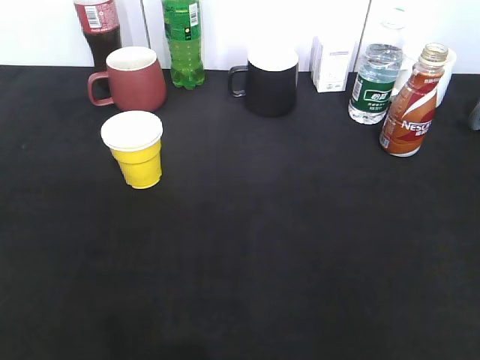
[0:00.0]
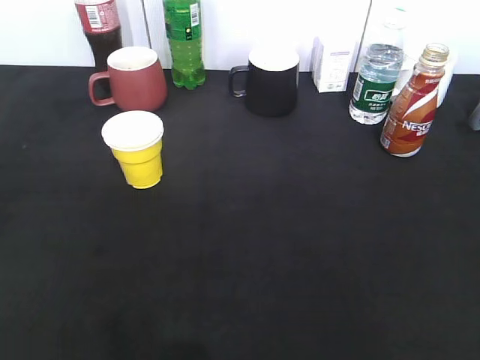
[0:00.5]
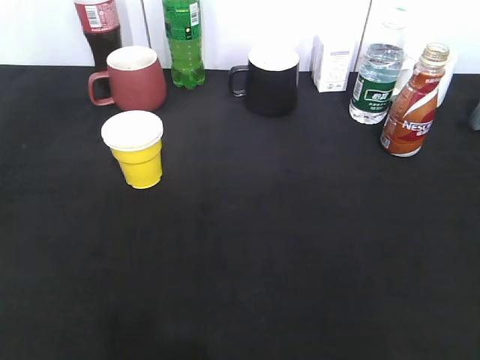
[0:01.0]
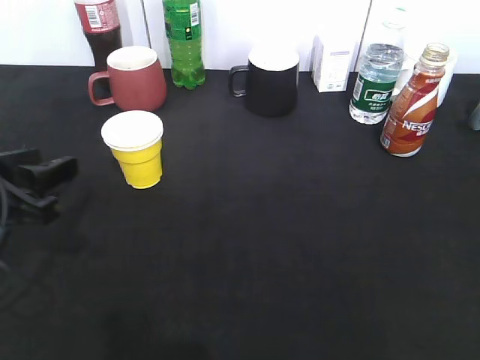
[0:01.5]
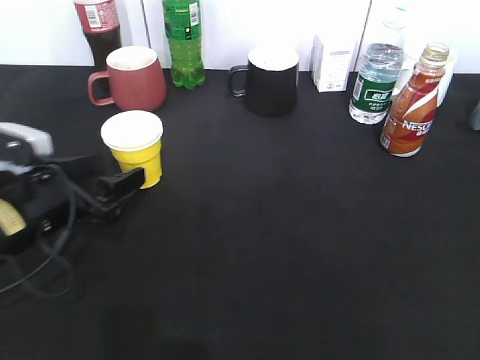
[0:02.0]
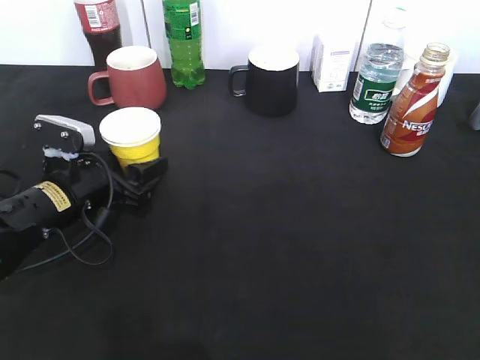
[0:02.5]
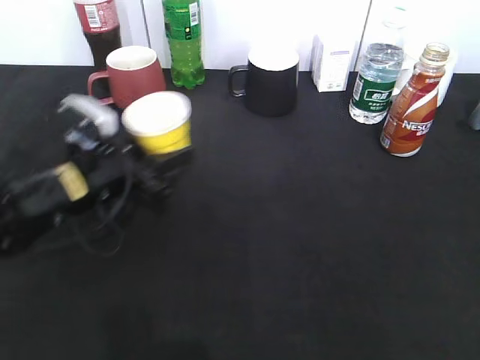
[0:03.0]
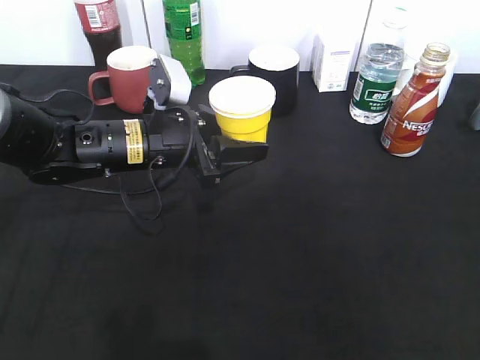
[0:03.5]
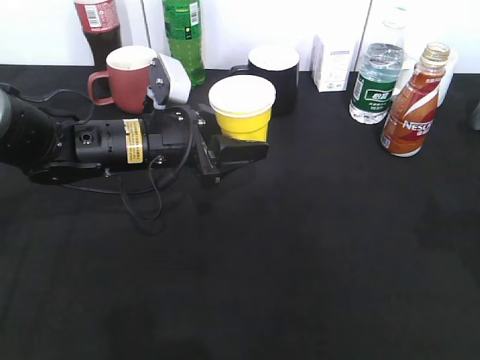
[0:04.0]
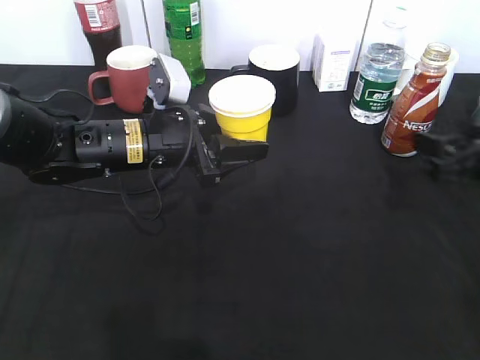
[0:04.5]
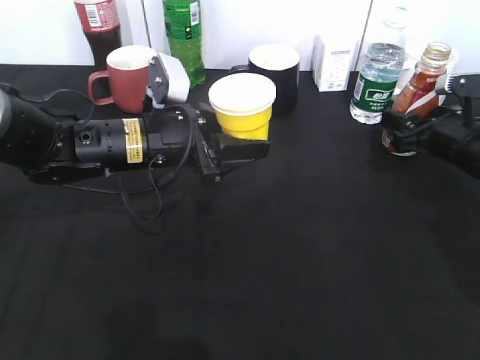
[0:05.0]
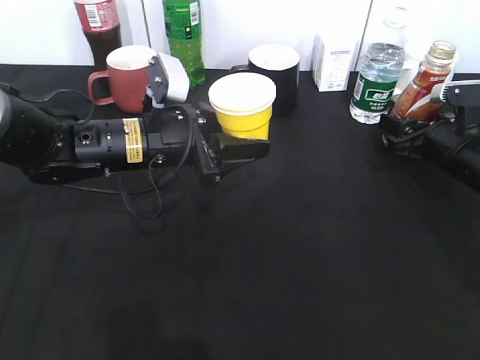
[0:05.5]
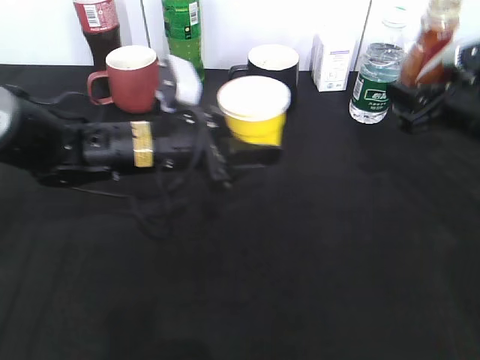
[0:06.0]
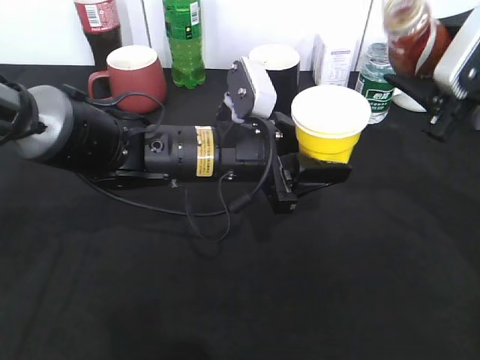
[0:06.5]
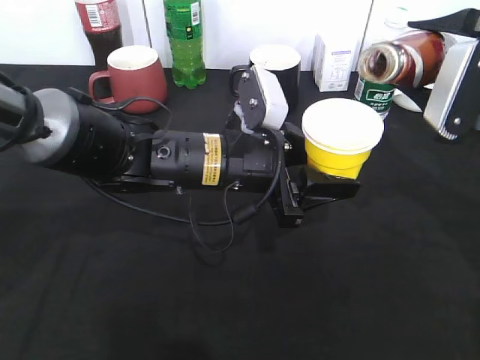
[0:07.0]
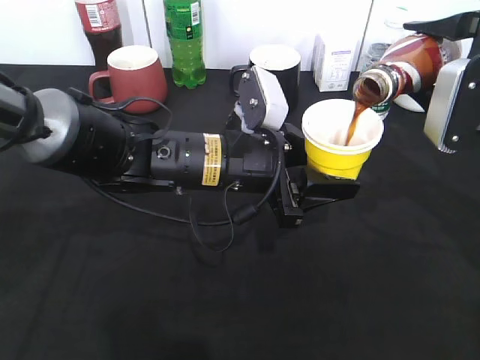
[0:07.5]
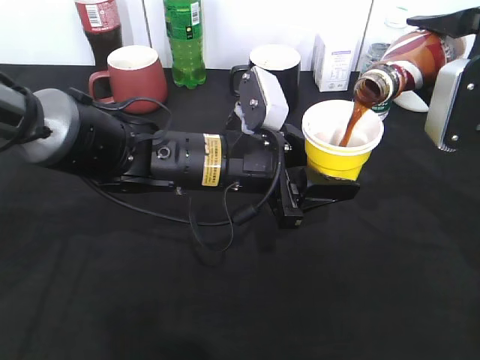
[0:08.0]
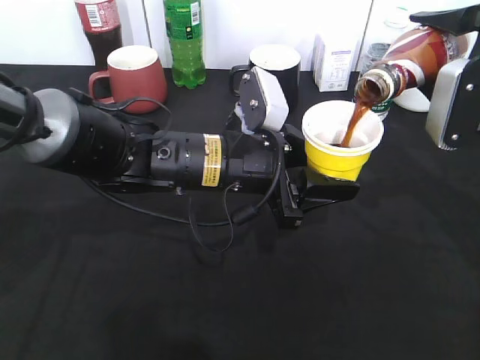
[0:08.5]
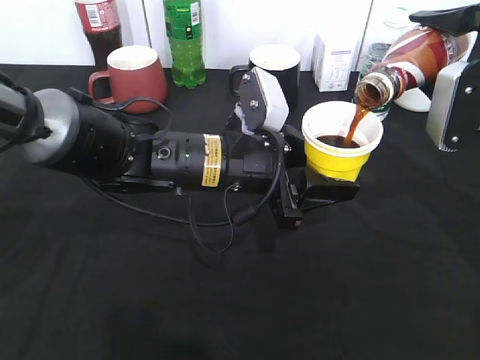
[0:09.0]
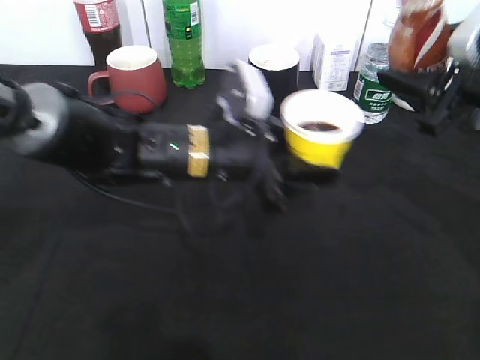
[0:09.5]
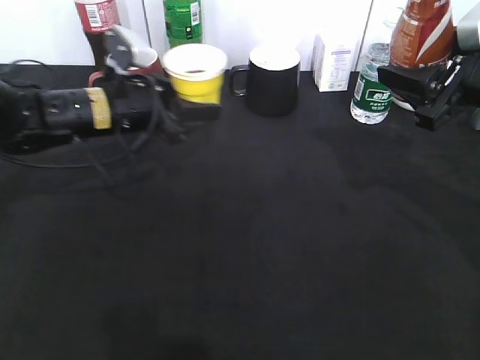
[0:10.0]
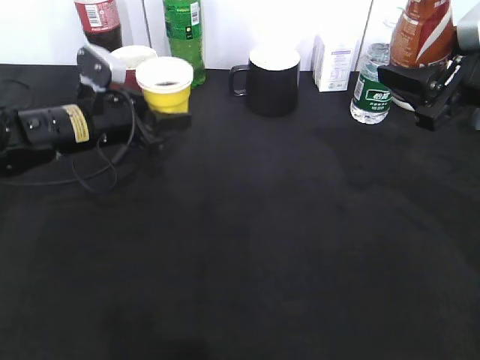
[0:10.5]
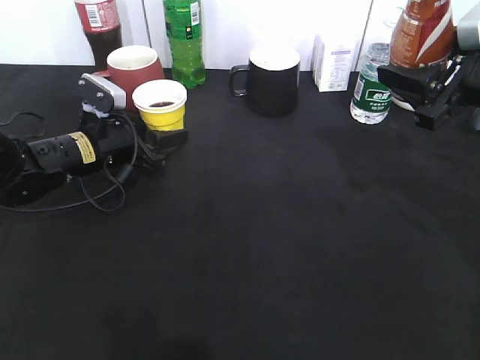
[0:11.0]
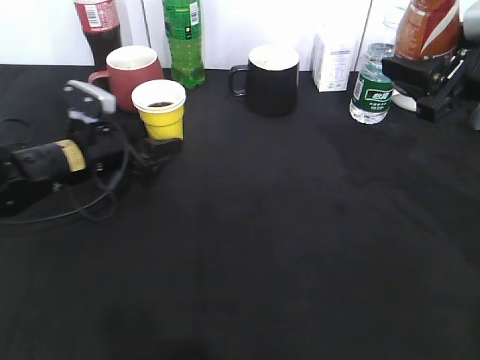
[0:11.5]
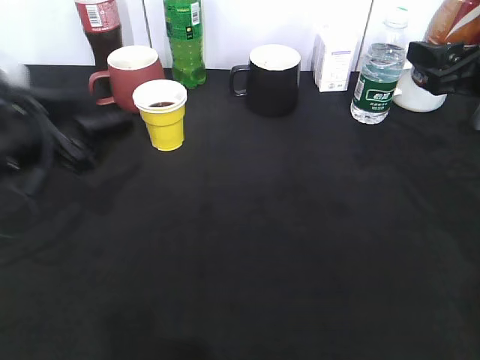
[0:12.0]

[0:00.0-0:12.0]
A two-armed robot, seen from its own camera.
Step, 0:01.5 to 0:02.5: Grasp the yellow paper cup with left gripper.
Step, 0:03.0 to 0:04.0: Lift the yellow paper cup with left gripper.
Step, 0:04.5 to 0:05.5: Grasp the bottle with coffee with right gripper.
Step, 0:06.0 to 0:09.0: Pour the coffee from bottle to cup with right gripper.
Step, 0:09.5 to 0:11.0: Place the yellow paper cup on the table with left gripper.
0:00.0 to 0:02.0: The left gripper travels forward, downward and to the right by roughly 30 cm, and opens its fingers.
0:02.0 to 0:04.0: The left gripper is displaced to the right and forward by some 15 cm, and closes up, while the right gripper heads forward, covering some 15 cm.
0:04.0 to 0:06.0: The right gripper goes about 20 cm forward and downward, and closes its fingers.
0:06.0 to 0:08.0: The right gripper moves upward, roughly 5 cm. The left gripper is displaced to the right by some 5 cm.
0:08.0 to 0:10.0: The left gripper shifts about 20 cm to the left and forward.
0:10.0 to 0:12.0: The left gripper shifts approximately 15 cm backward and to the left, and opens.

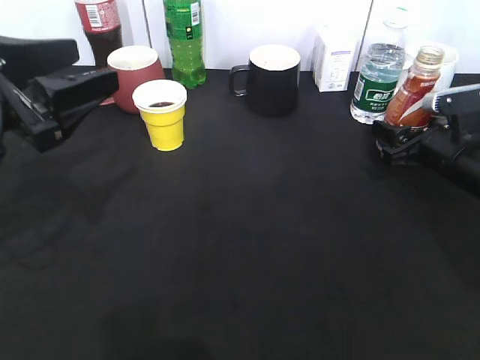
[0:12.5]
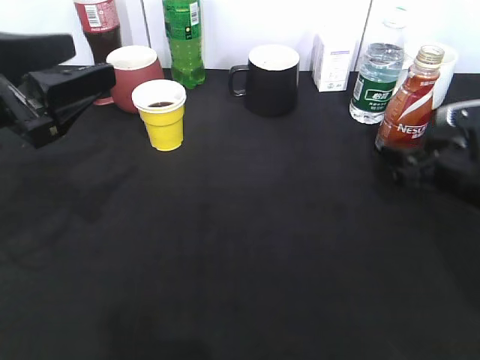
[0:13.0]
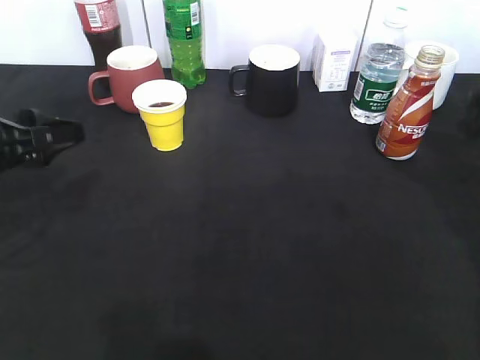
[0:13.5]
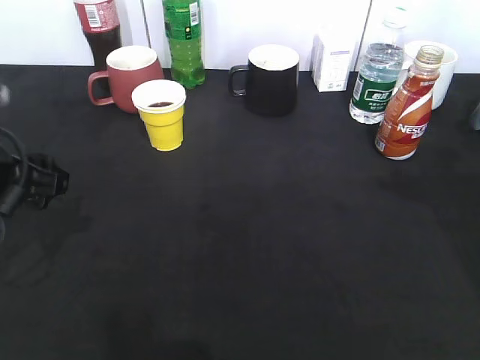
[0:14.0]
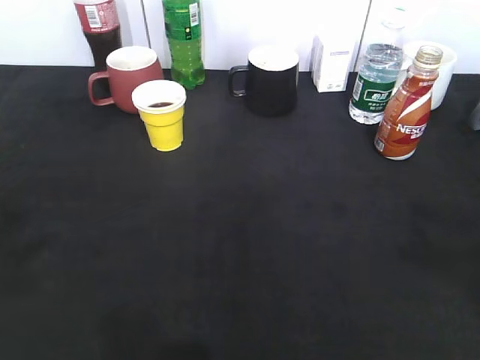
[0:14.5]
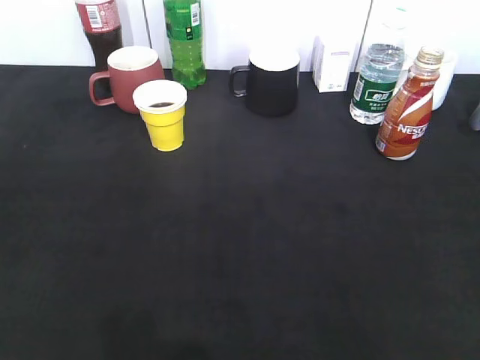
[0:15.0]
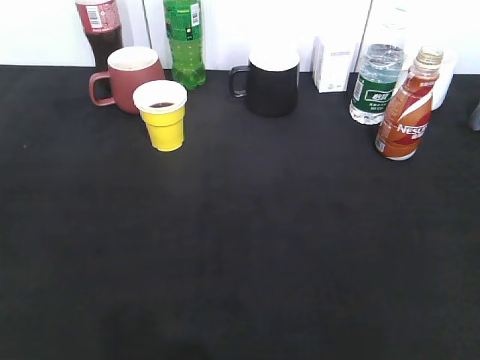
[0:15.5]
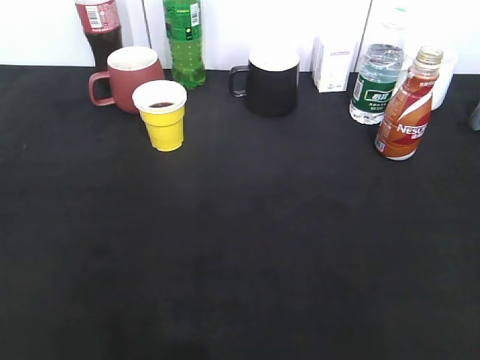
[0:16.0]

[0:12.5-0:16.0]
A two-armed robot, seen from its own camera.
0:12.5 to 0:14.5: The left gripper is displaced backward and upward by approximately 15 cm, and closes up, while the right gripper goes approximately 35 cm upward and backward, and opens, then closes again.
0:14.5 to 0:16.0: The left gripper heads backward, to the left and downward, covering roughly 15 cm, while the right gripper shifts approximately 15 cm backward and downward.

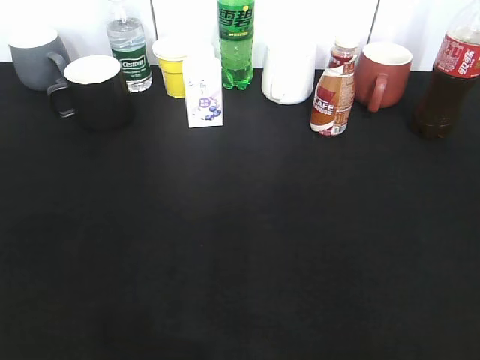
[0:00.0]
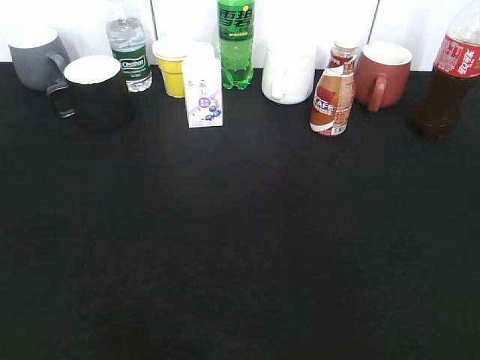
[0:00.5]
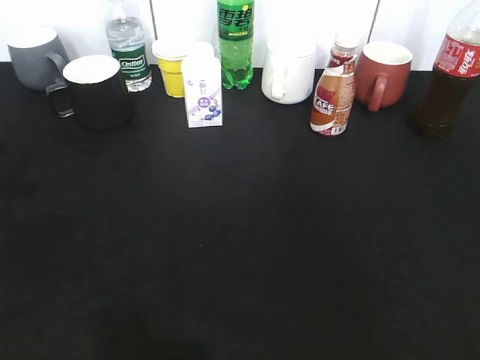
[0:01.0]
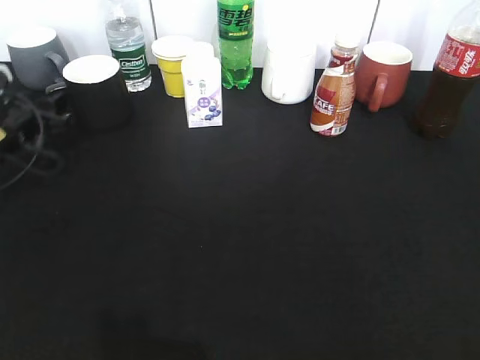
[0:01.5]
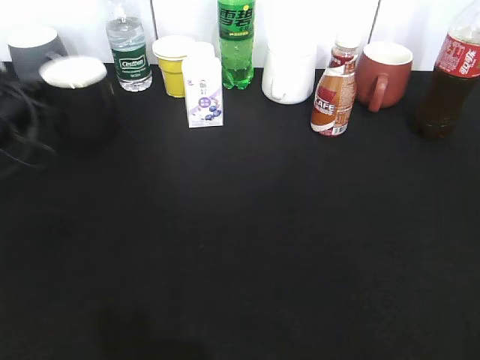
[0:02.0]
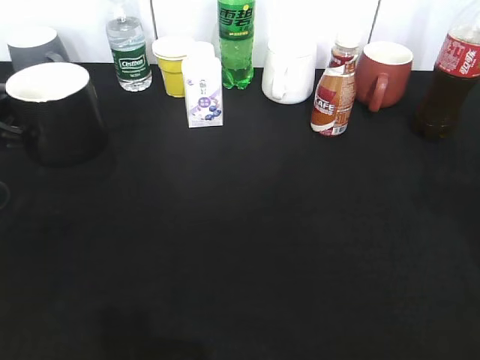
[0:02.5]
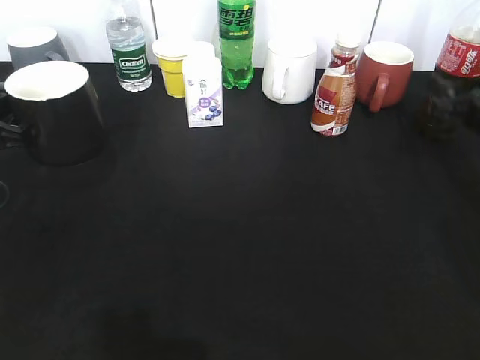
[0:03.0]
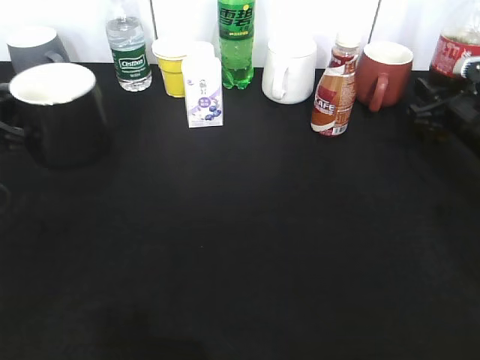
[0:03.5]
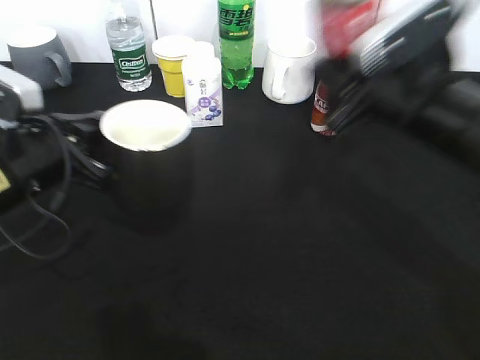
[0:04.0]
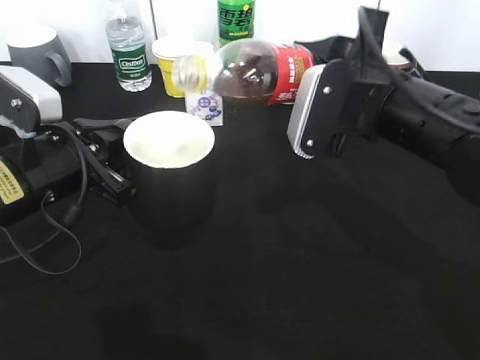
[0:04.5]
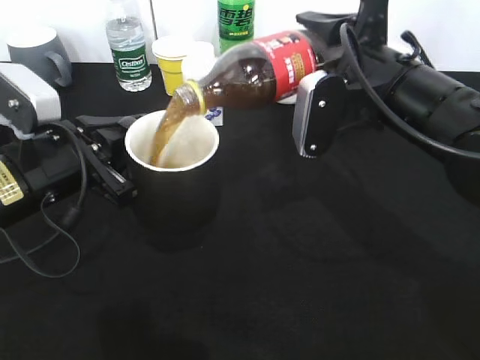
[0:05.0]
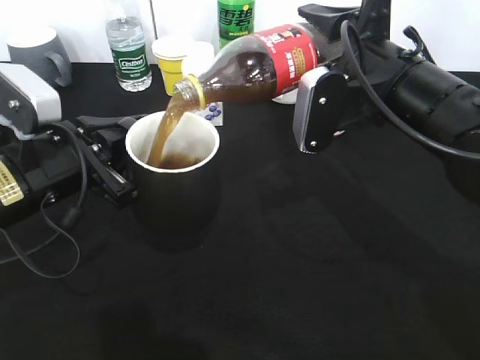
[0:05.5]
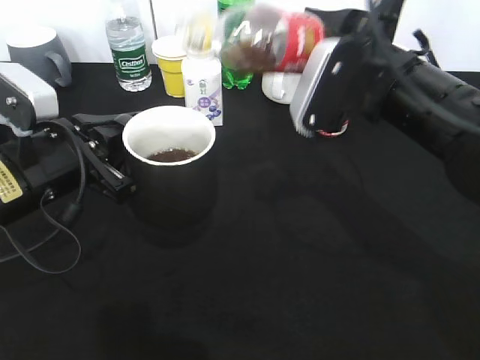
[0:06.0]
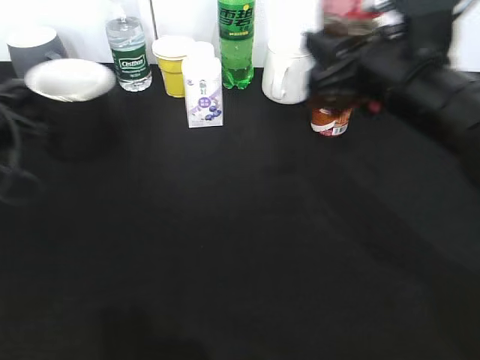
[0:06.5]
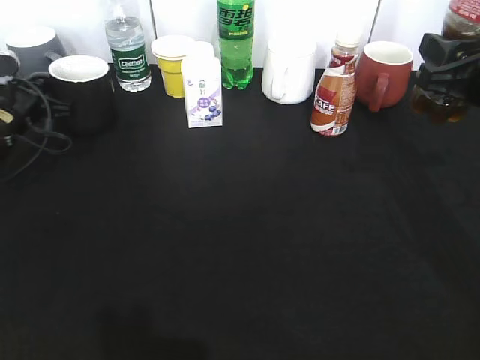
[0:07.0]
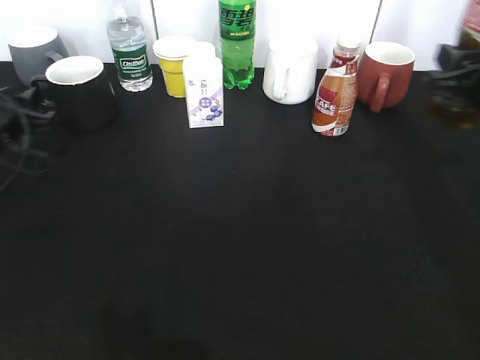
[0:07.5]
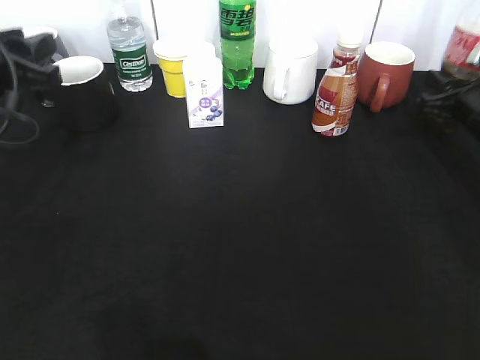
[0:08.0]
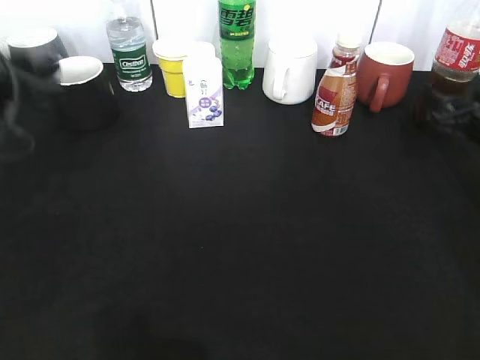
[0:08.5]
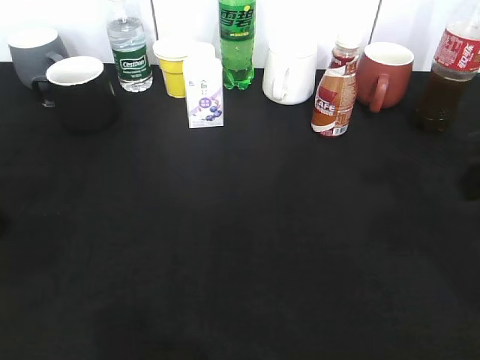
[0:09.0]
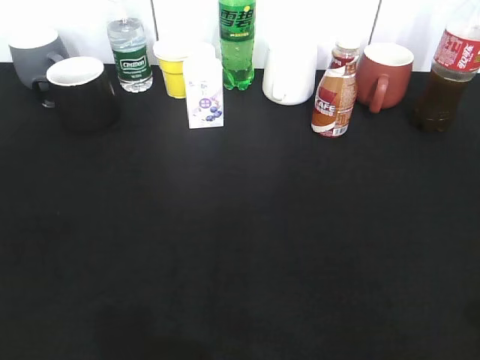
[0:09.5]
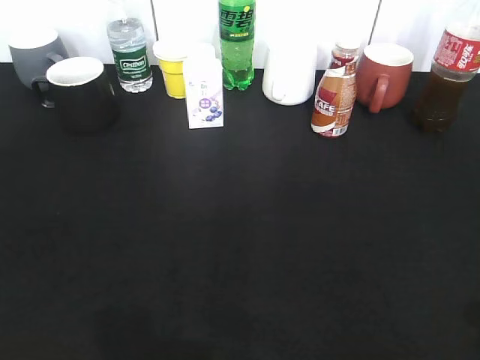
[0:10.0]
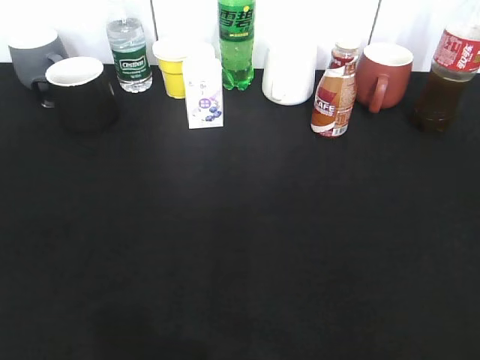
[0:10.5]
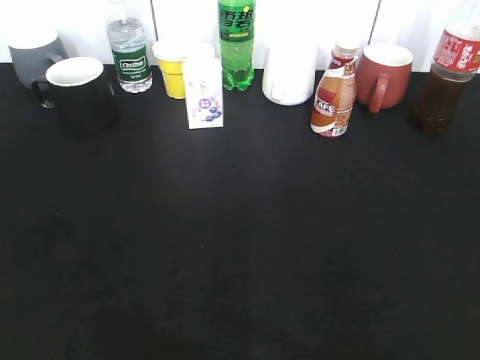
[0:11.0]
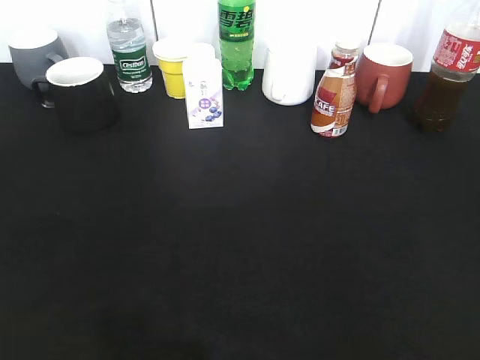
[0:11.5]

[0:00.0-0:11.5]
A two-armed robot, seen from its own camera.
Step, 0:02.0 to 0:02.5: Lift the black cup with left gripper.
Step, 0:03.5 to 0:06.0: Pour the cola from bottle to cup with right gripper.
Step, 0:06.5 to 0:07.5: Place the black cup on the table with left gripper.
Step, 0:08.0 to 0:09.0: Place the cola bottle on the table with right gripper.
0:00.0 to 0:02.0: The left gripper goes some 35 cm forward, and closes.
0:02.0 to 0:04.0: The left gripper travels backward and to the right by approximately 15 cm. Meanwhile the right gripper goes roughly 30 cm forward and to the left, and closes its fingers.
0:06.0 to 0:07.5: The left gripper heads to the left and forward, covering approximately 15 cm, and opens up; the right gripper heads to the right, covering some 15 cm.
0:07.5 to 0:09.5: The left gripper moves backward and upward, some 35 cm; the right gripper travels backward by roughly 25 cm, and opens its fingers.
